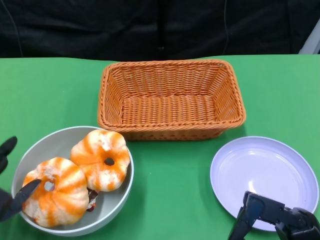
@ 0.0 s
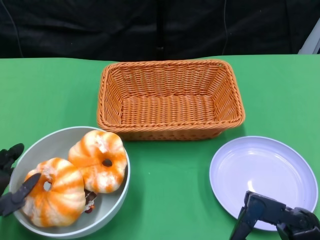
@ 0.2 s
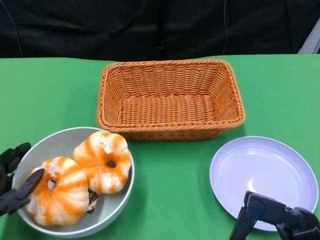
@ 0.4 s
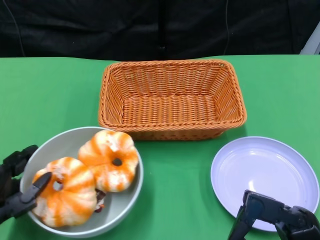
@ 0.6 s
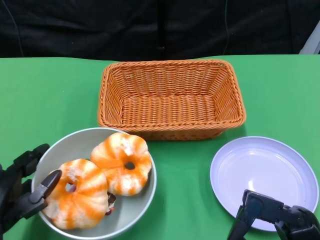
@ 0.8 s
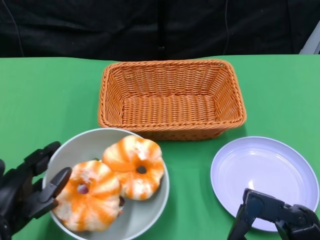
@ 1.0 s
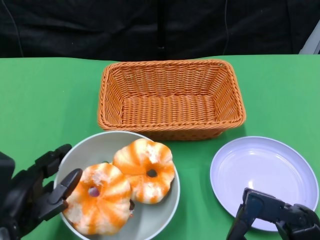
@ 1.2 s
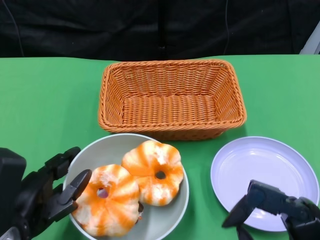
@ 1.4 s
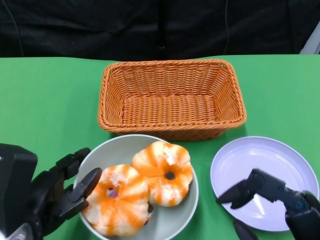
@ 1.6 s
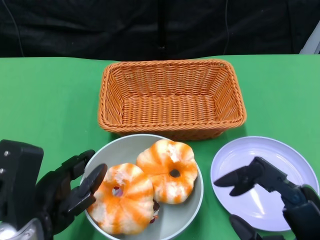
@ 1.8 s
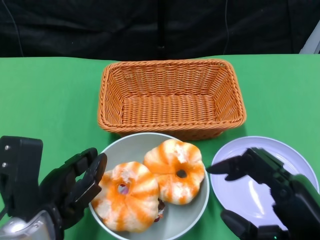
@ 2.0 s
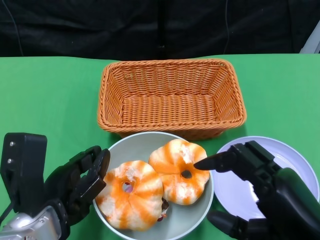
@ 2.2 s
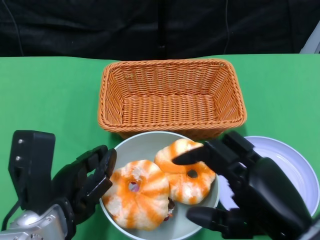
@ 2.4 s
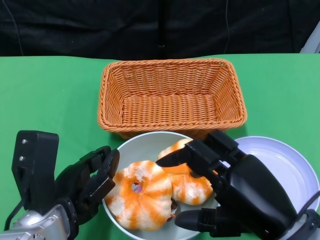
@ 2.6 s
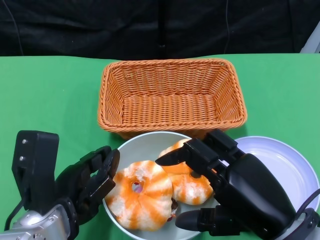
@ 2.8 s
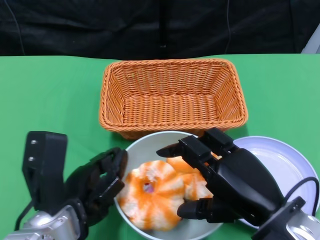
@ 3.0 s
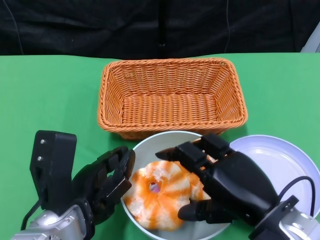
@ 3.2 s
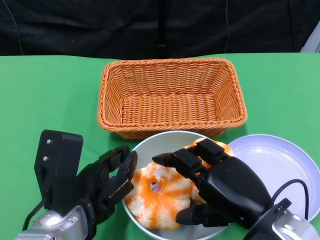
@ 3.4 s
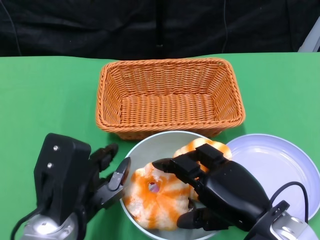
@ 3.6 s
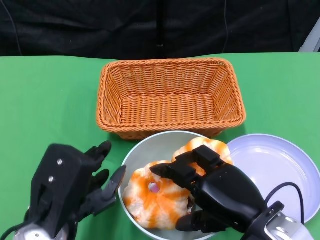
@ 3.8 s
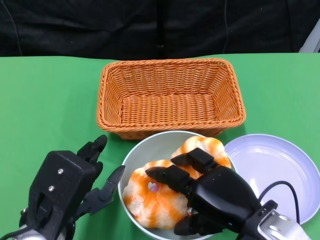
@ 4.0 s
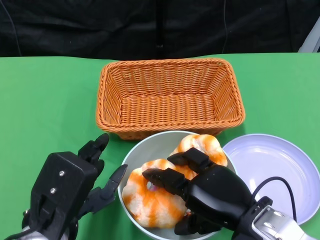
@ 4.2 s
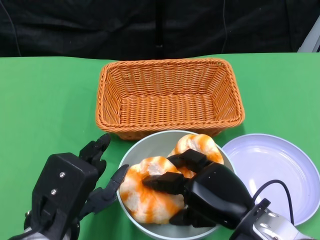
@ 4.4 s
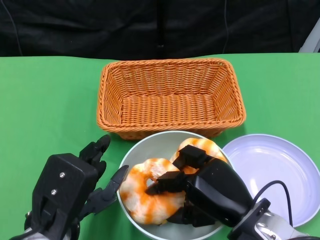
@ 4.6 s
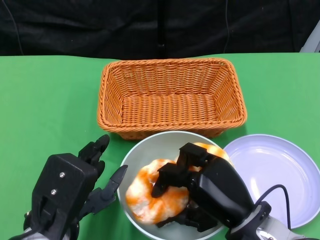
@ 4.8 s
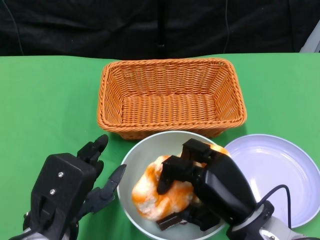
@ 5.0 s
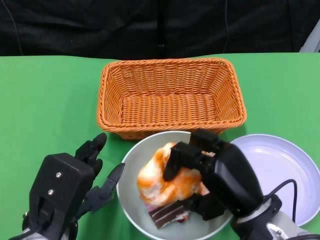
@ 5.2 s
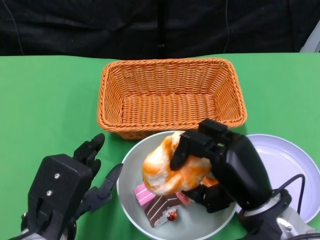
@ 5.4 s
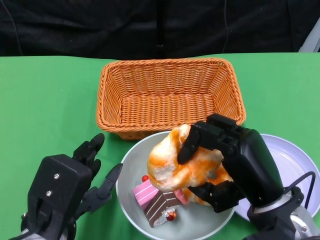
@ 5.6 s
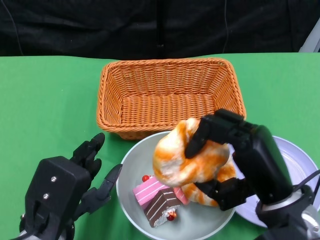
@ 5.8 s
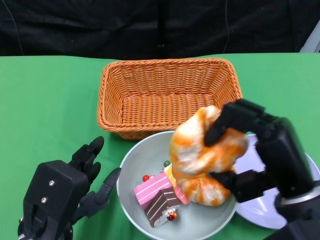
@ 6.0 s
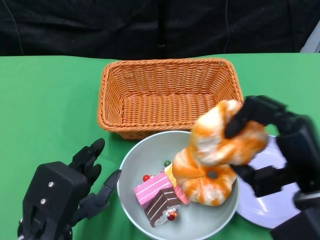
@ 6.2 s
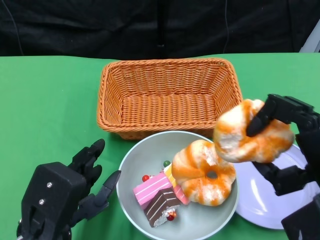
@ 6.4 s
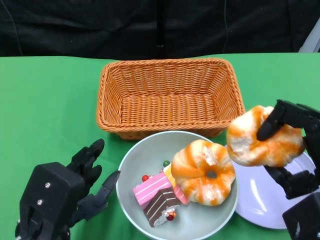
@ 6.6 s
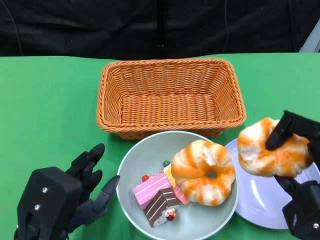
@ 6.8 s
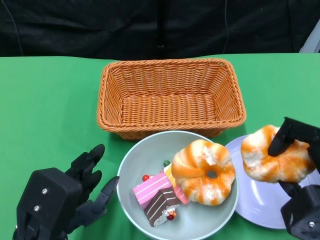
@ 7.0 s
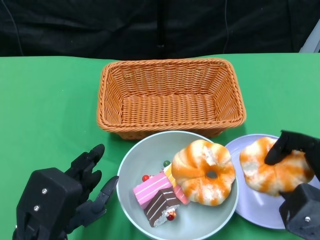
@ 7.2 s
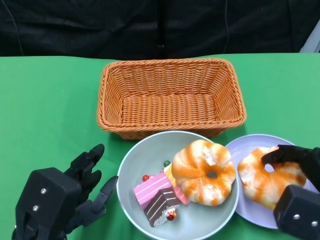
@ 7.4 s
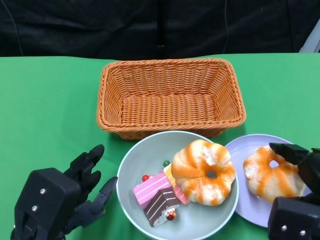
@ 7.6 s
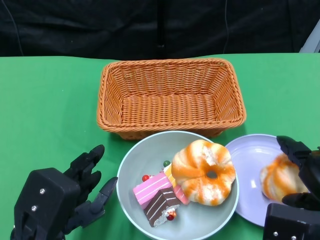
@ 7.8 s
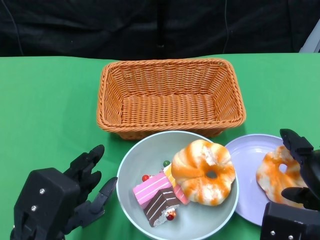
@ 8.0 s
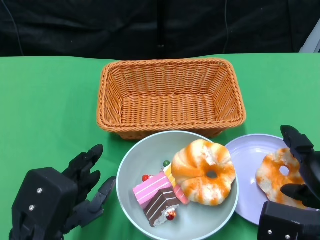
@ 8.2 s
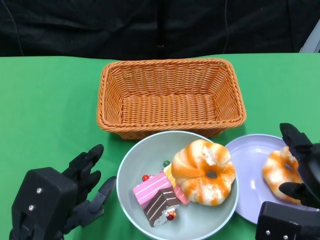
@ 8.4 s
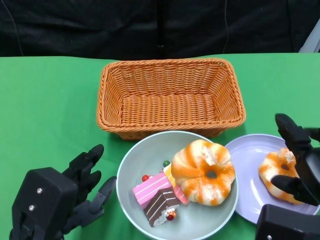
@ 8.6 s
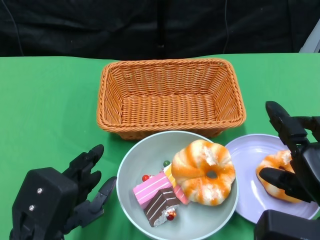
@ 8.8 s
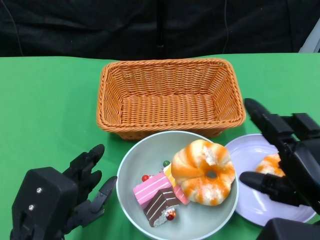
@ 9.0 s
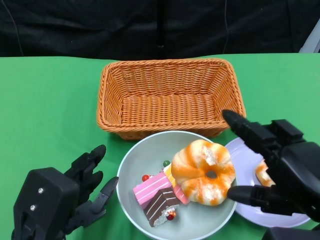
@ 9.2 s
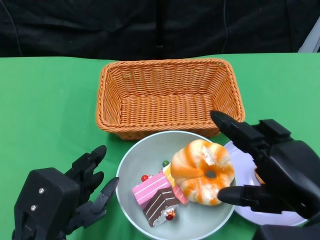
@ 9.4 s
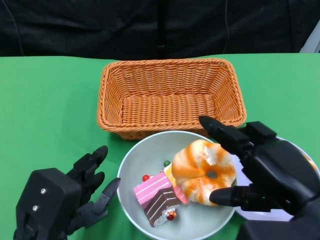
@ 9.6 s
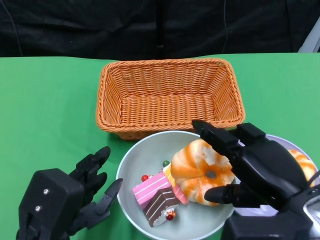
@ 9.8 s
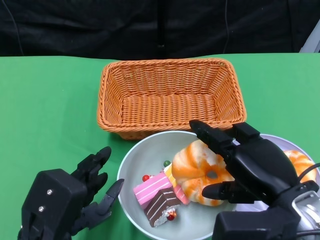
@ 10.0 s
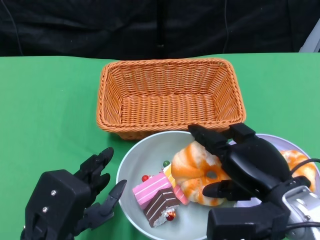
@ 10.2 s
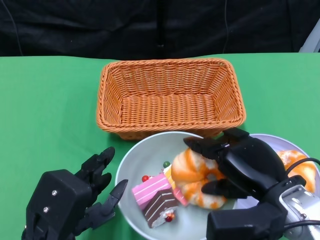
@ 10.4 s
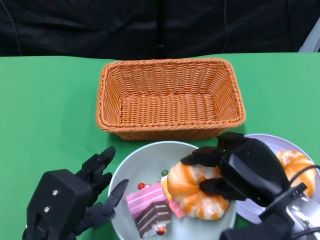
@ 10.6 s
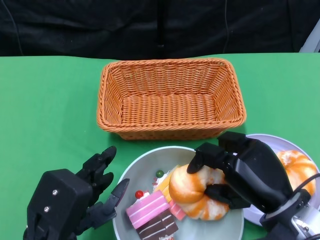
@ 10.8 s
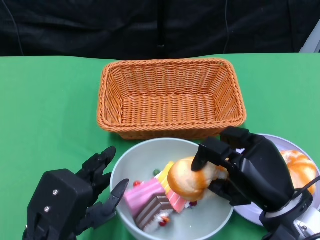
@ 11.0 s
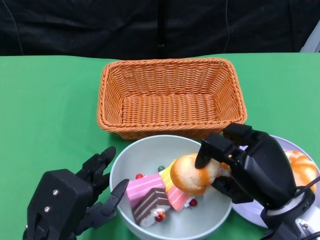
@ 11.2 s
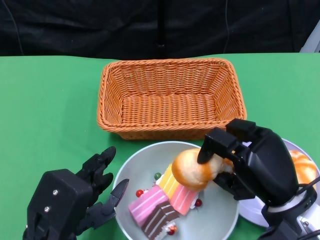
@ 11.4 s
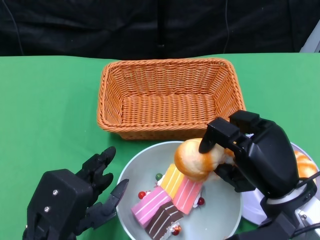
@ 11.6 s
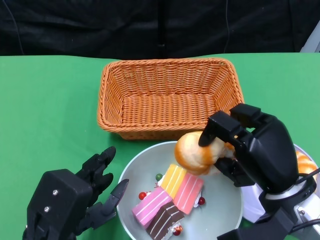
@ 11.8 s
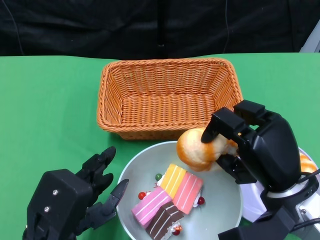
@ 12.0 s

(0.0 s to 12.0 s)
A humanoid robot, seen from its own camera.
Step, 0.0 s - 3.2 s: Push the bowl to the center of the table using the left gripper.
Step, 3.4 s - 8.6 s: Pick up the bread with the right gripper and place it on the plate.
0.0 s - 1.6 s: The left hand goes approximately 5 cm to the right.
1.6 s - 3.0 s: The right hand travels forward by roughly 5 cm; the left hand travels to the right by approximately 5 cm.
3.0 s - 4.4 s: The right hand goes about 5 cm downward.
4.4 s - 6.0 s: The right hand heads upward, covering some 5 cm.
6.0 s - 7.6 s: The right hand shifts about 10 cm to the right.
9.0 s - 10.4 s: The right hand is displaced to the left and forward by some 5 cm.

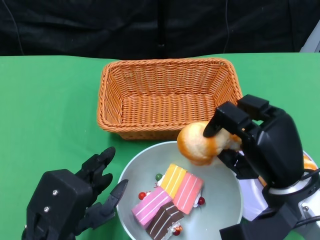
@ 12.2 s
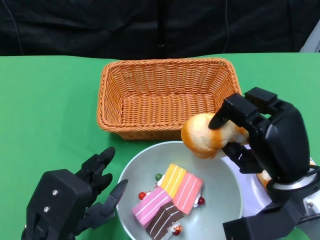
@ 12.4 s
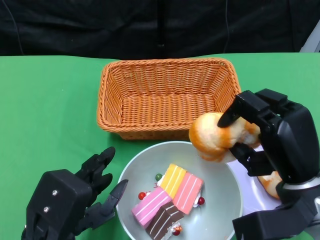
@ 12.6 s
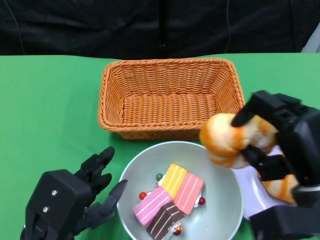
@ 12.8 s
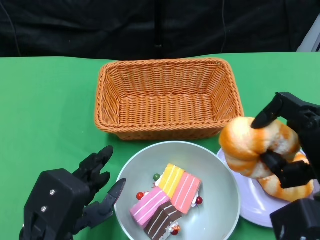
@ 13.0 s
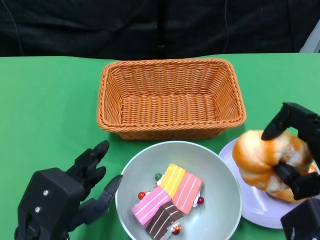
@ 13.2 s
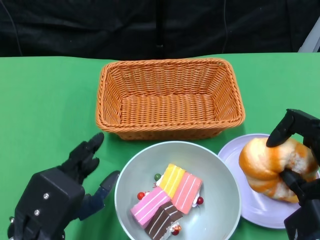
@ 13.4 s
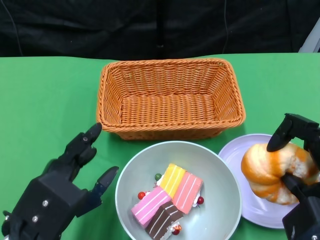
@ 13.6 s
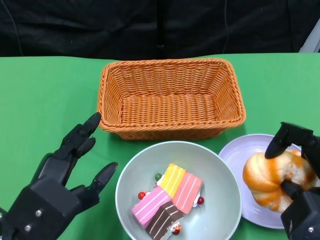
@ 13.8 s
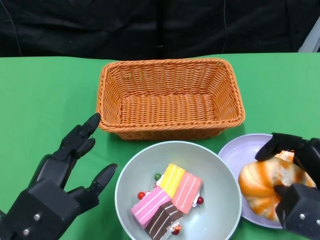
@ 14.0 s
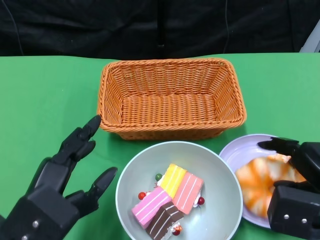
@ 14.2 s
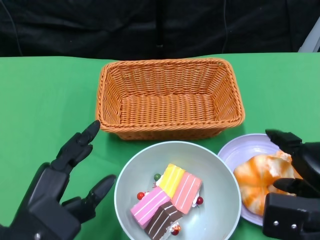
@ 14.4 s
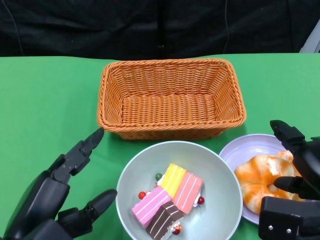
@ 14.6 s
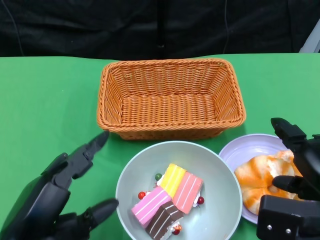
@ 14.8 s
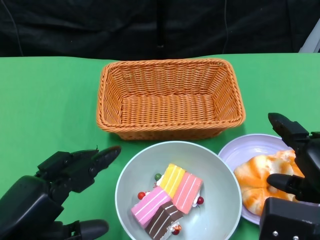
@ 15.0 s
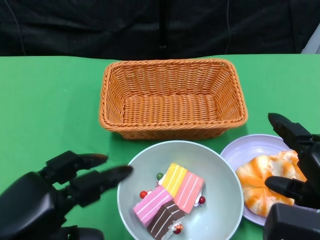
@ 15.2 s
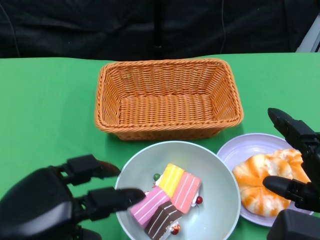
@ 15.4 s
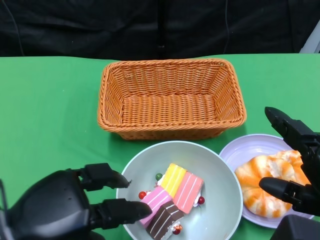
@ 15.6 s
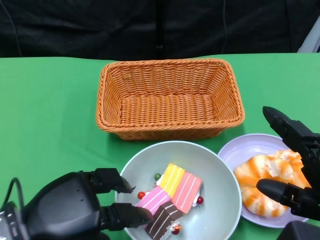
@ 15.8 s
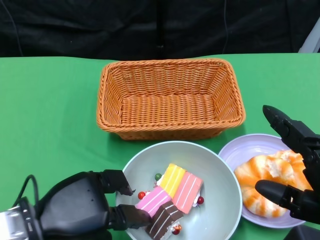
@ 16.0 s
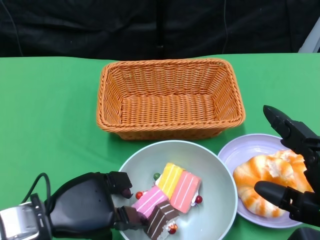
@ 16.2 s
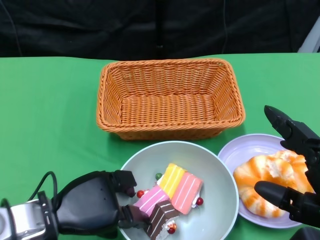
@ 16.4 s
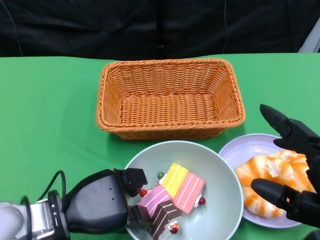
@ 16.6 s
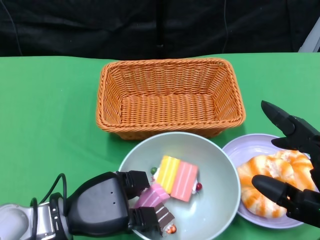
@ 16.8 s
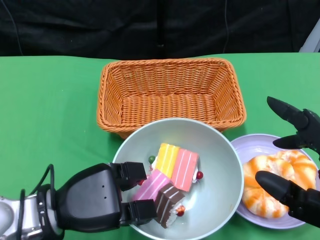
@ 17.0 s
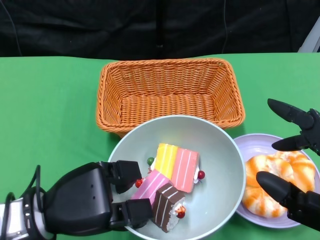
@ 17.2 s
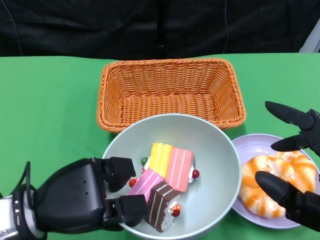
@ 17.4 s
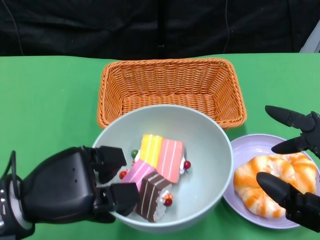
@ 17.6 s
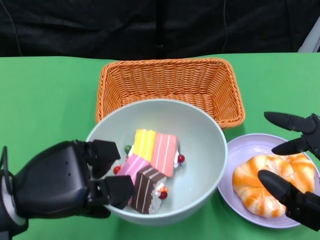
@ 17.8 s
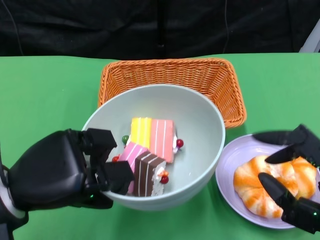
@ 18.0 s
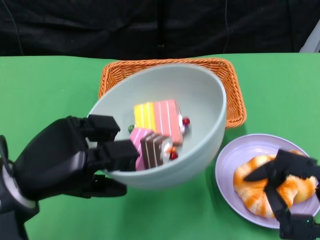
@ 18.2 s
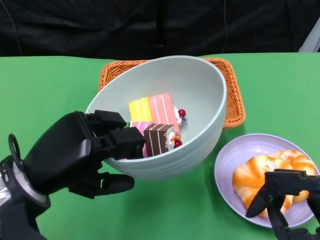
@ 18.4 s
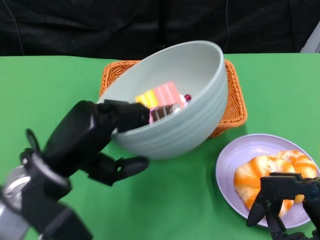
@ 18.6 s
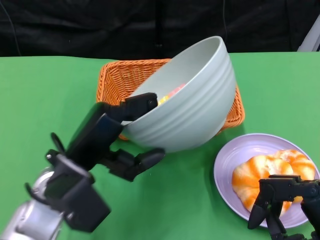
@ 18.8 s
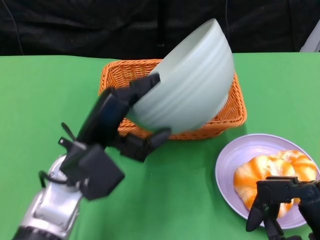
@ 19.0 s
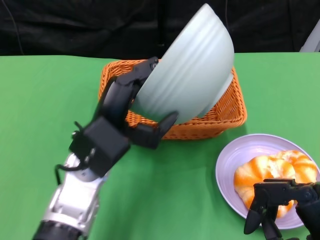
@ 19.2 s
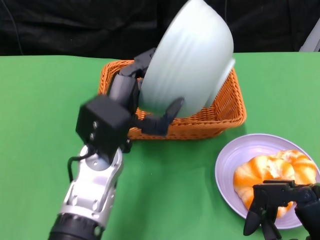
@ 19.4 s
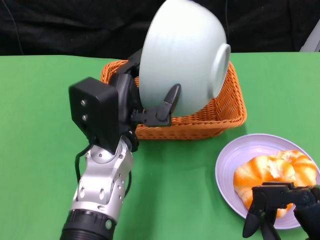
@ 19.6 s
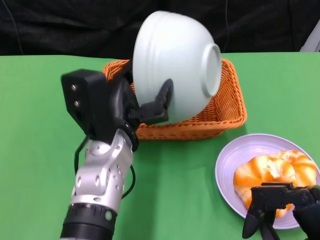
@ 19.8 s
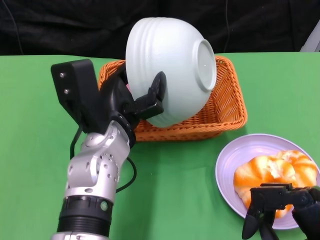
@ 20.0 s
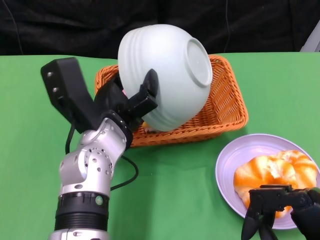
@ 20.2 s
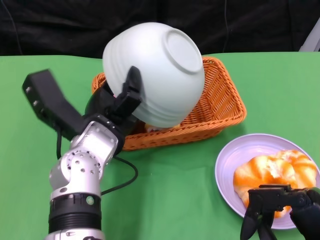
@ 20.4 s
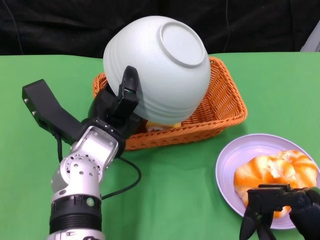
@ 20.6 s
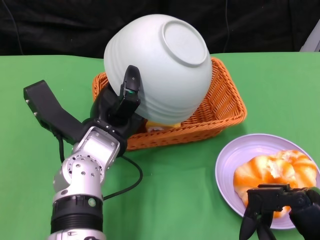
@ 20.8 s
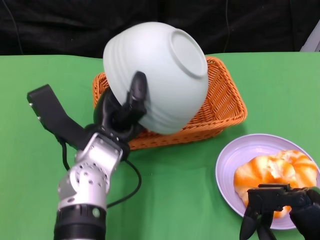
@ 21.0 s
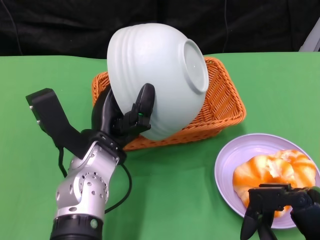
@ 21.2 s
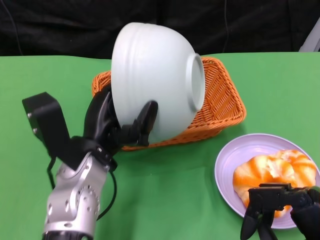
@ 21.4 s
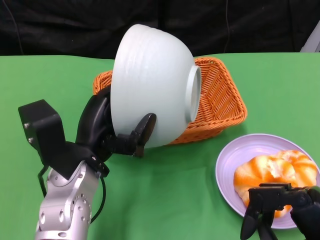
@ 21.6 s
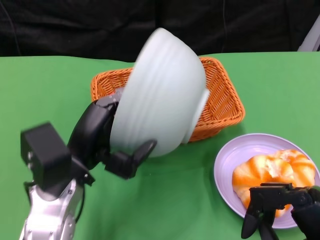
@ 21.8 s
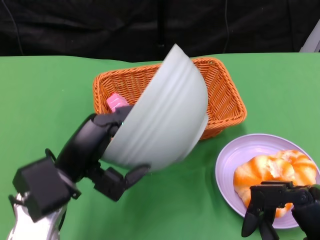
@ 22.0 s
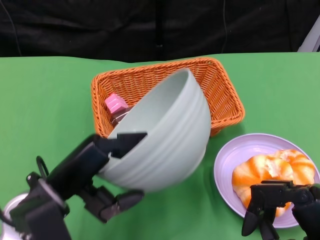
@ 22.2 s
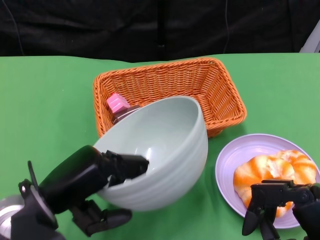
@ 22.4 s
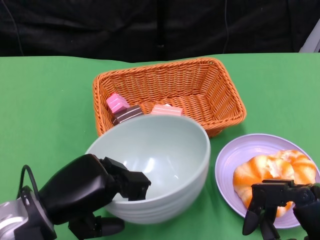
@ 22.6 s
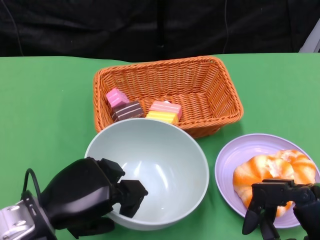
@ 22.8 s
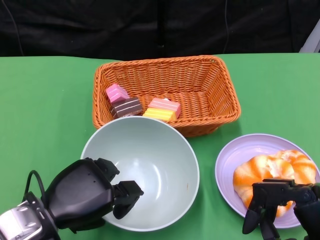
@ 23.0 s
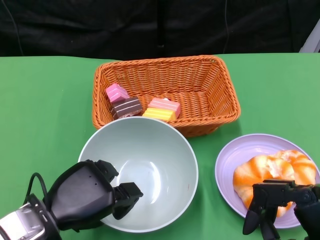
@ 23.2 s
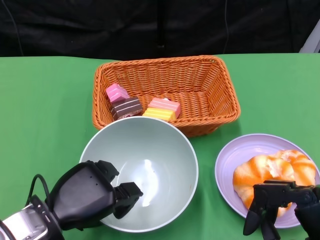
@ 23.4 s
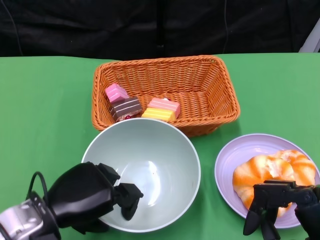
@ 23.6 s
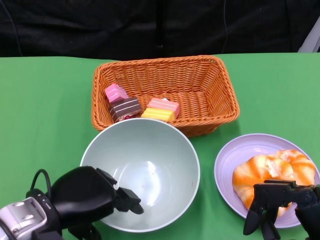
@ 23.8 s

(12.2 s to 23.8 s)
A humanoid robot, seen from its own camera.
Step, 12.2 s - 14.4 s: Pick up the bread with the right gripper and place it on the plate.
Step, 14.6 s - 16.6 s: Grasp the bowl with the left gripper.
Step, 16.8 s - 21.2 s: Pour the cake into the basket with the left gripper.
12.2 s - 13.6 s: The right hand travels to the right and backward by about 10 cm.
13.6 s - 15.0 s: The left hand ends up approximately 5 cm from where it was.
15.0 s - 16.6 s: The left hand travels forward, downward and to the right by some 15 cm; the right hand heads backward, covering approximately 5 cm.
16.6 s - 18.0 s: The left hand heads upward, covering about 10 cm.
18.0 s - 19.4 s: The left hand is displaced to the right and forward by about 15 cm.
21.0 s - 22.4 s: The left hand travels to the left and backward by some 15 cm.
